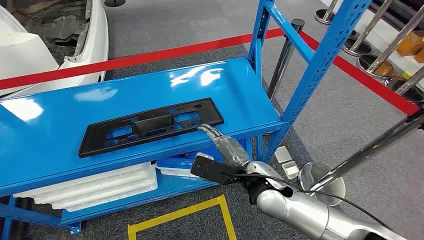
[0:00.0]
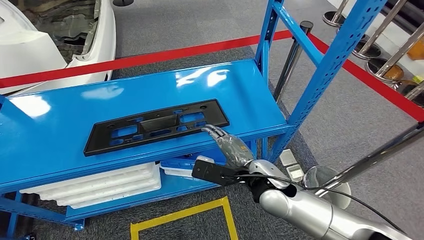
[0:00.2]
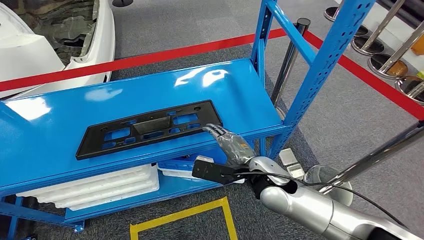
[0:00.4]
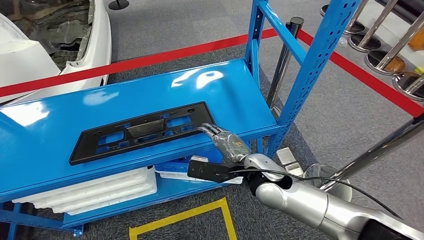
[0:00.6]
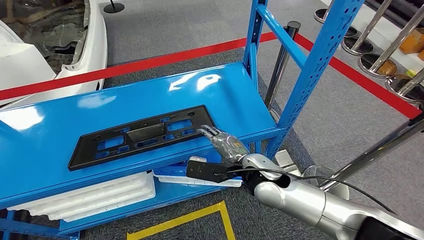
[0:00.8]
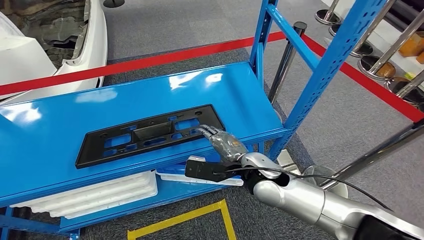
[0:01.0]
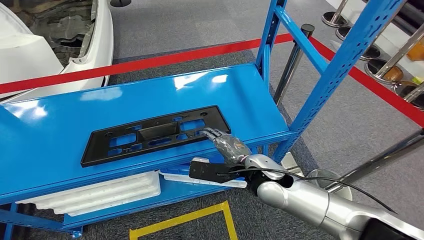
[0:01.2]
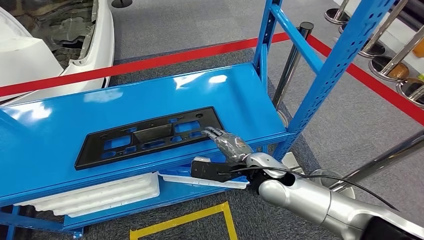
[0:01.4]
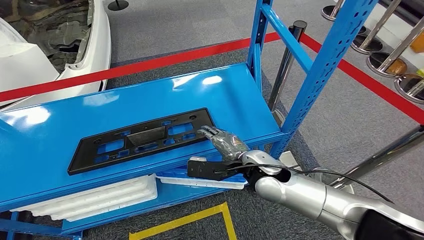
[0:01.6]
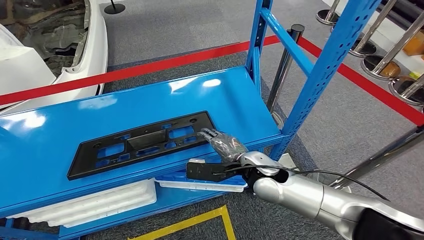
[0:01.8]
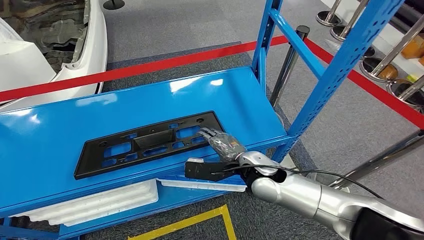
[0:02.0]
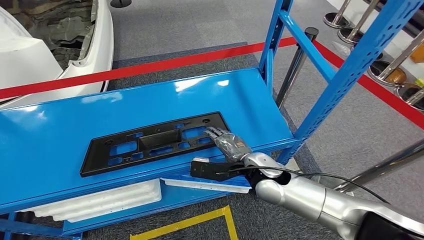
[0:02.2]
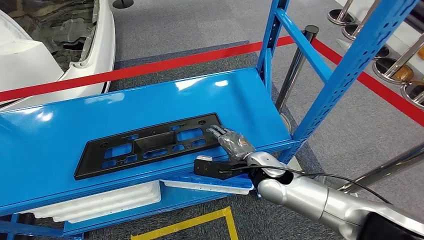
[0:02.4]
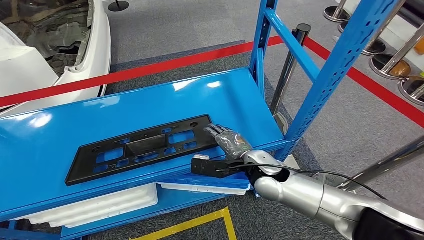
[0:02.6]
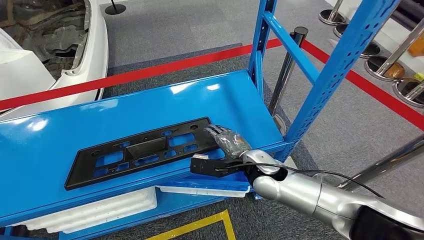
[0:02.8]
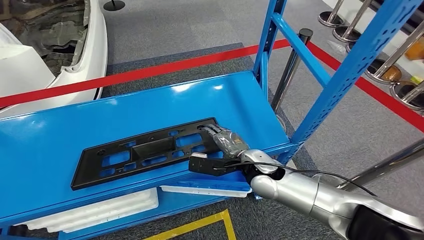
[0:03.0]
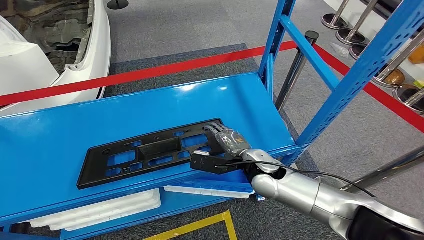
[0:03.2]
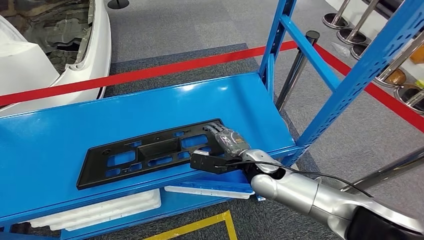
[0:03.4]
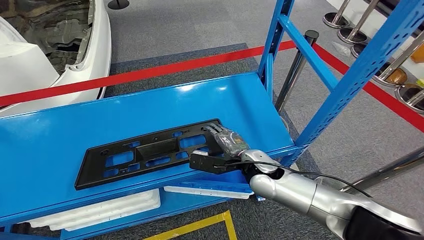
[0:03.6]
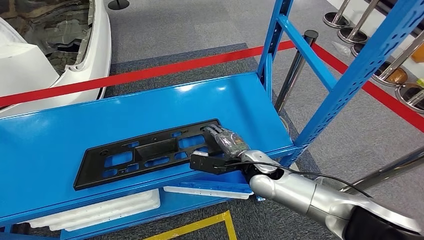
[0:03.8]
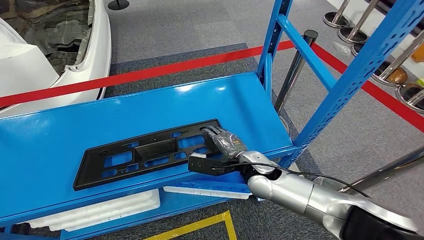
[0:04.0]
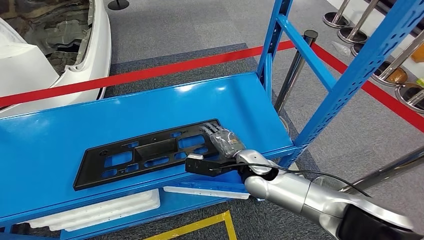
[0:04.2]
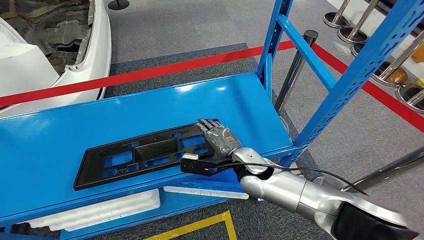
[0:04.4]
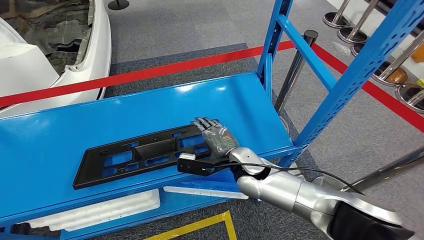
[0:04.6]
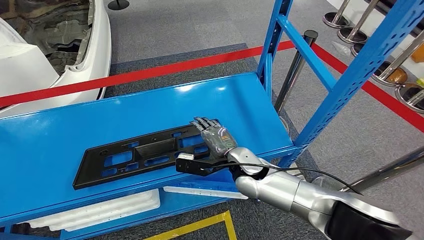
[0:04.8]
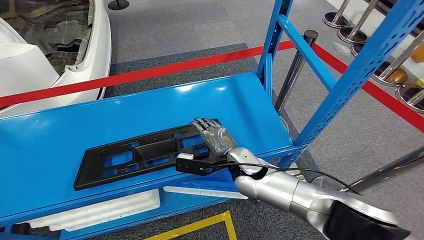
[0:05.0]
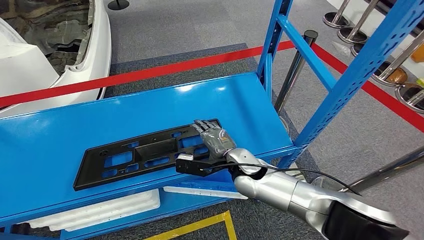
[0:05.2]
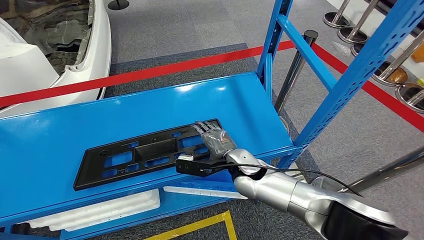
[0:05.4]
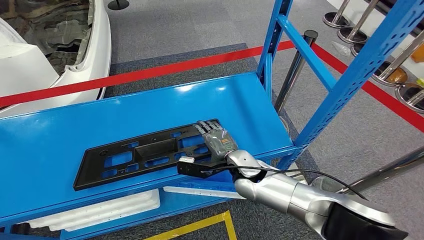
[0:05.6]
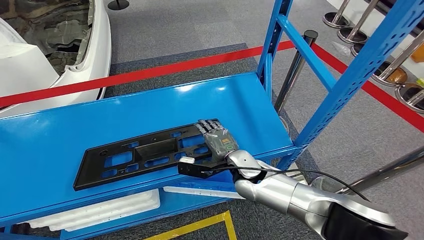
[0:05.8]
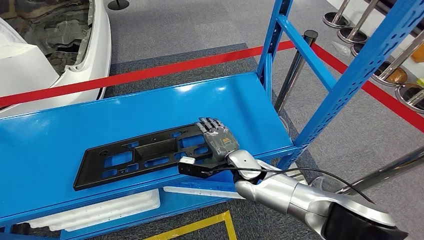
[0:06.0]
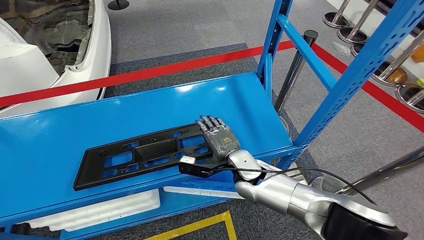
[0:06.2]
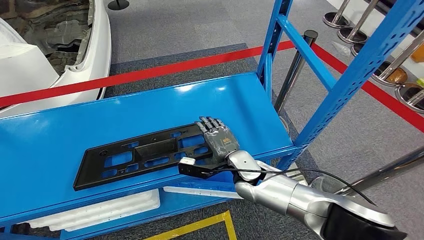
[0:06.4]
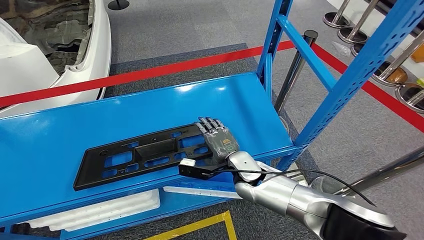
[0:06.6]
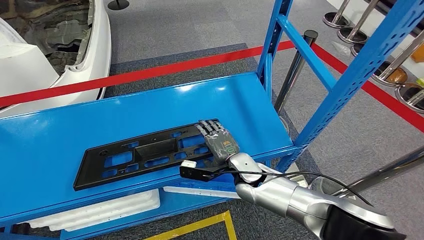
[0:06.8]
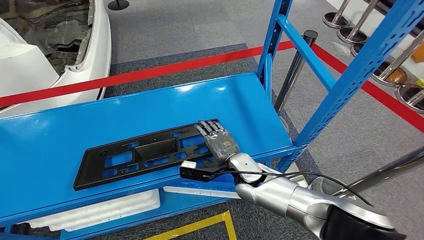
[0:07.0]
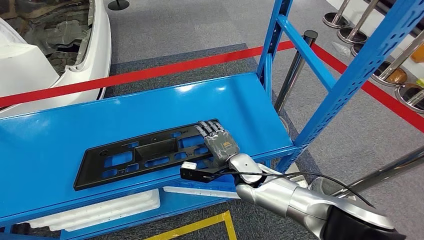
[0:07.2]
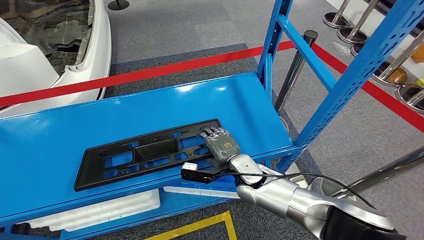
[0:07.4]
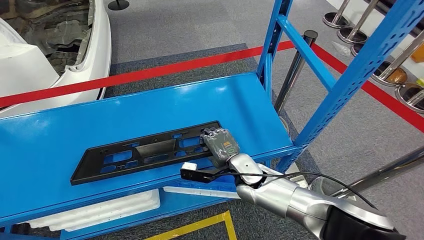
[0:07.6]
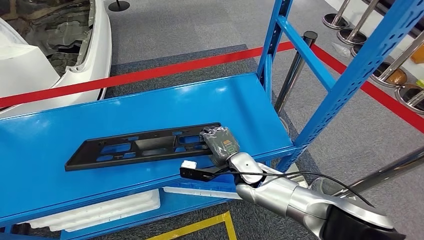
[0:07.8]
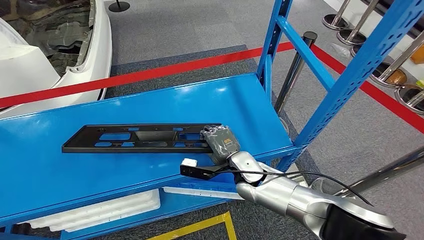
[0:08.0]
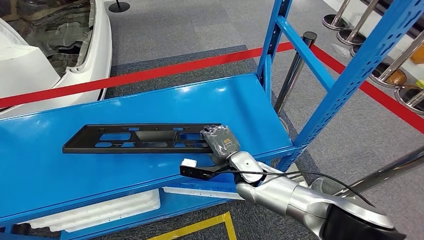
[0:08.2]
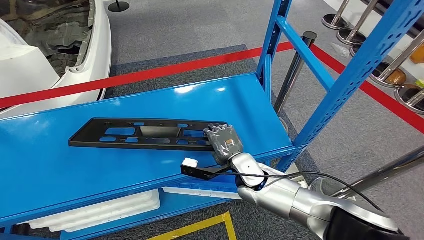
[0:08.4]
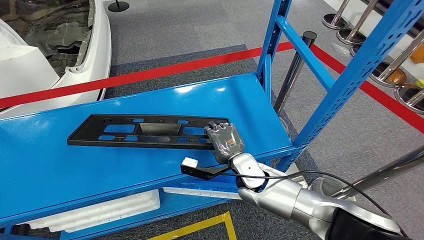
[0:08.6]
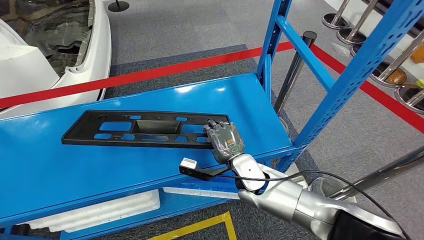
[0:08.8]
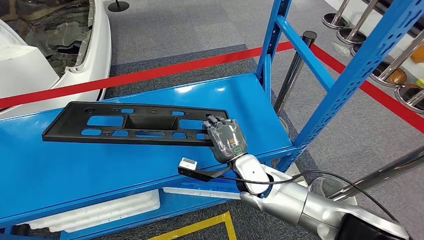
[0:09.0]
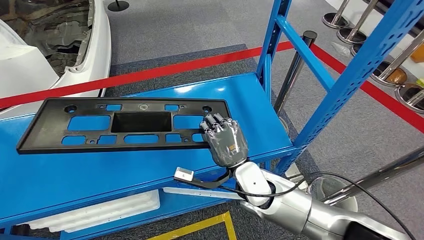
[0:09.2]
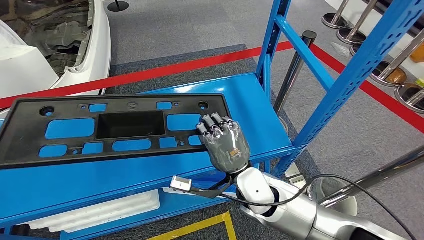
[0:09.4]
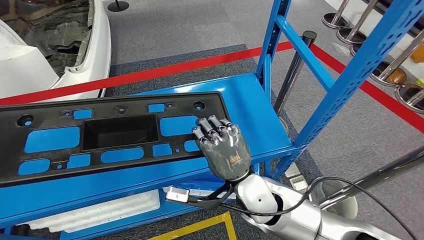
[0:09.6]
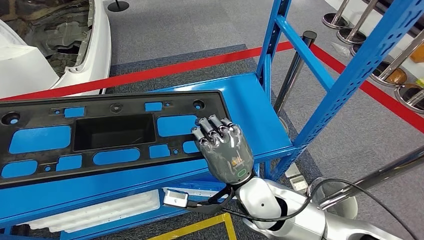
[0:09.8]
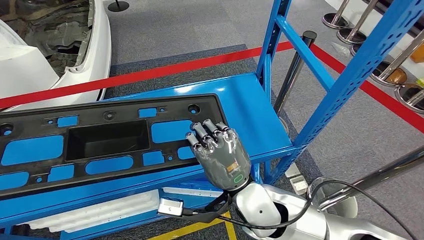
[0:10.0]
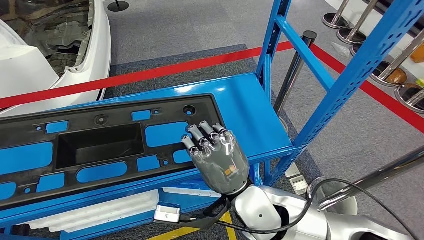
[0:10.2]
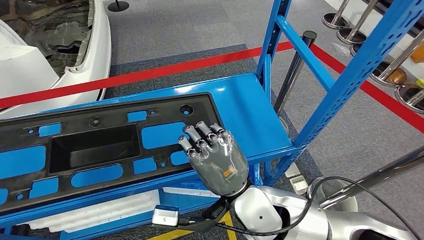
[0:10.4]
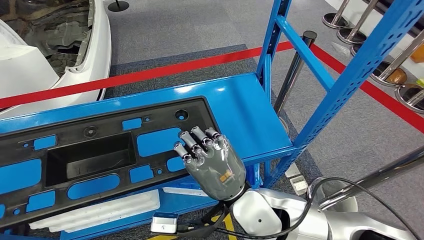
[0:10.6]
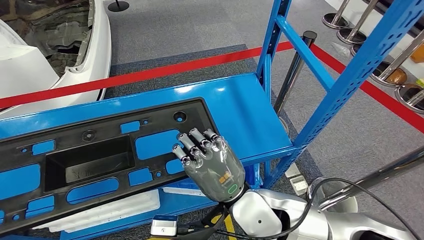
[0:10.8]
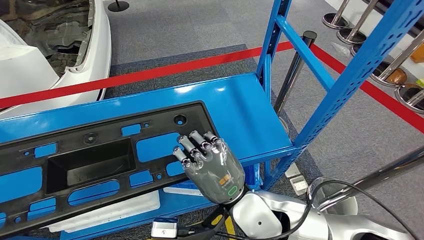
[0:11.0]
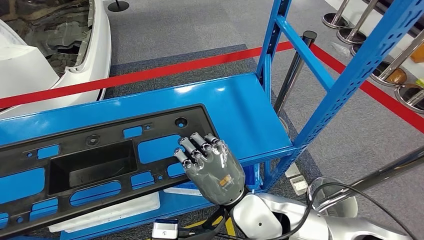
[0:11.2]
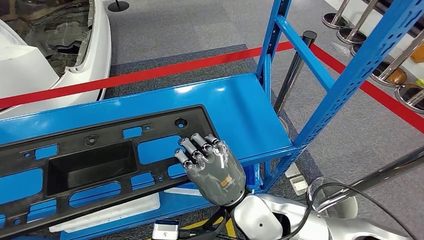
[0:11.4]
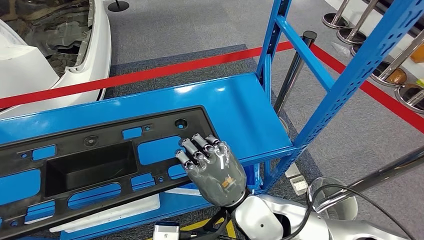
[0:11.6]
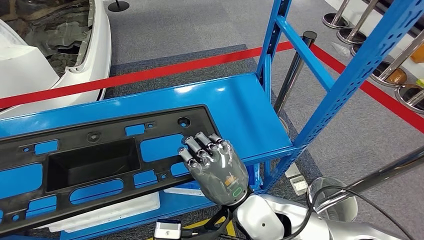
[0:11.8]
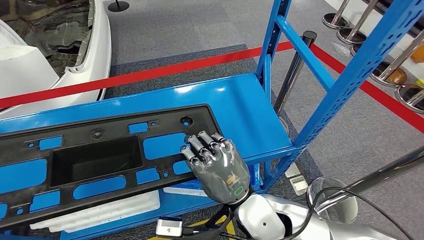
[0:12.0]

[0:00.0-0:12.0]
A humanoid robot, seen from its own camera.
0:04.4 to 0:07.6: The hands move only a little.
0:07.6 to 0:09.0: The hands move only a little.

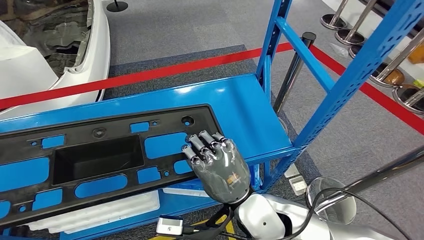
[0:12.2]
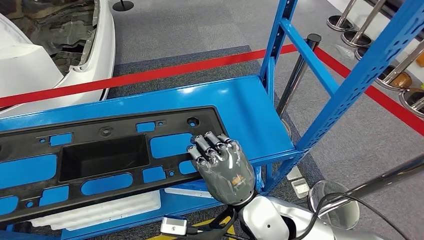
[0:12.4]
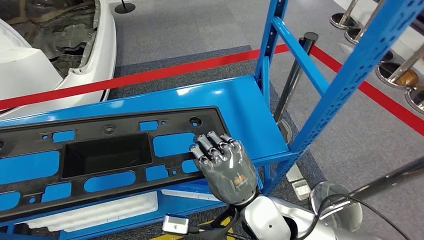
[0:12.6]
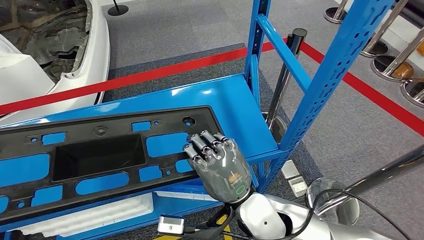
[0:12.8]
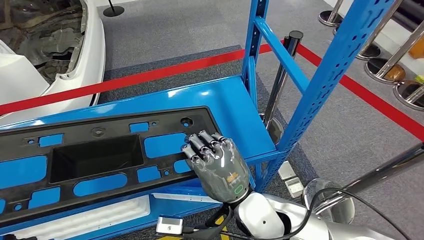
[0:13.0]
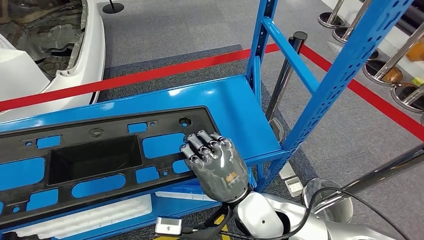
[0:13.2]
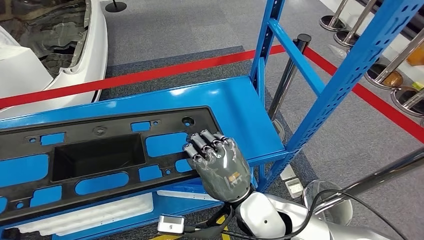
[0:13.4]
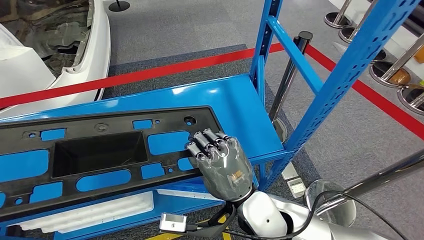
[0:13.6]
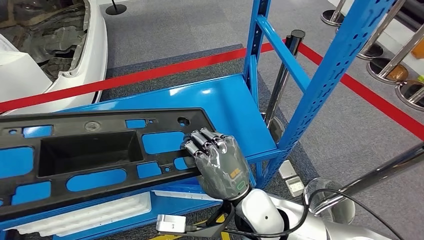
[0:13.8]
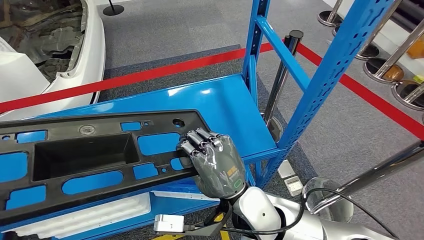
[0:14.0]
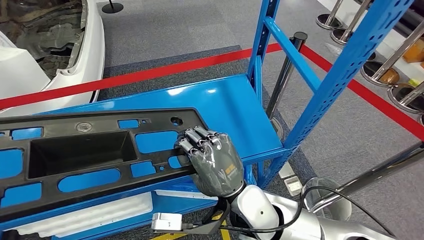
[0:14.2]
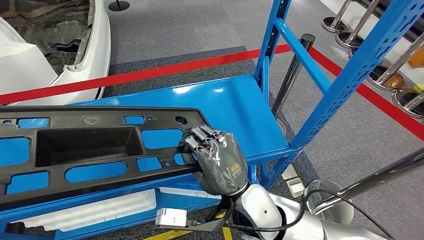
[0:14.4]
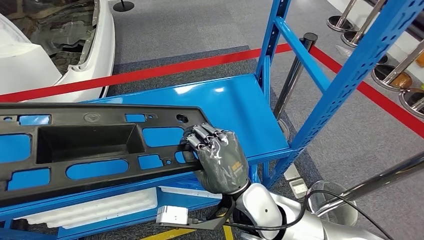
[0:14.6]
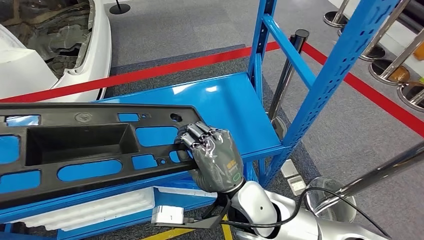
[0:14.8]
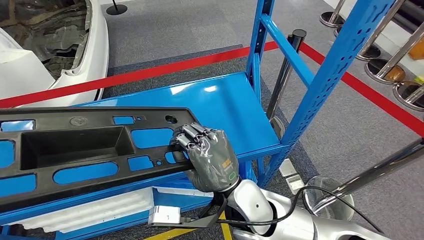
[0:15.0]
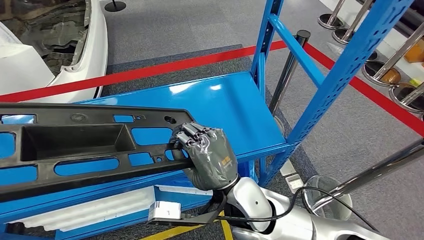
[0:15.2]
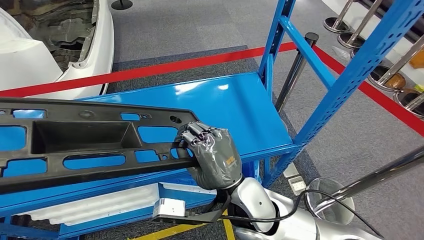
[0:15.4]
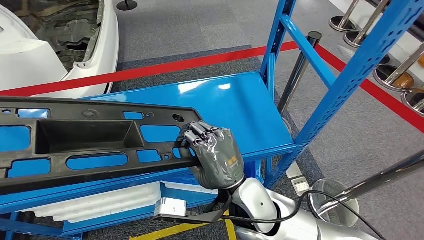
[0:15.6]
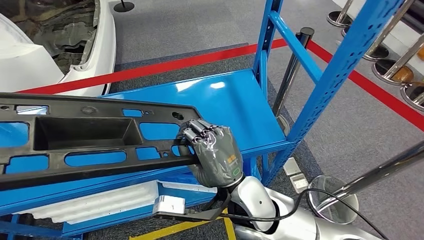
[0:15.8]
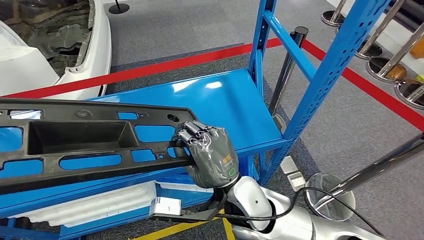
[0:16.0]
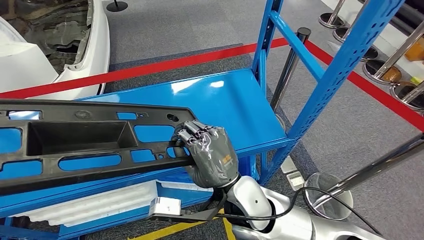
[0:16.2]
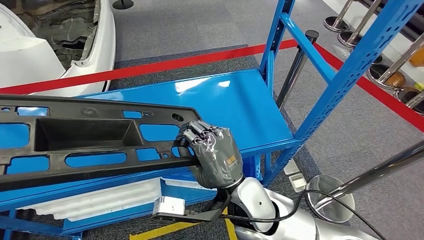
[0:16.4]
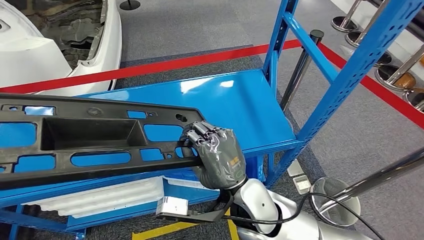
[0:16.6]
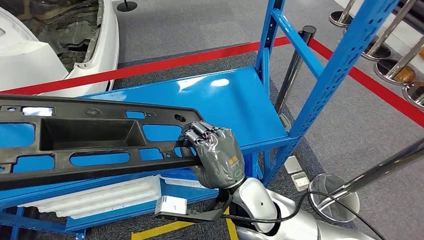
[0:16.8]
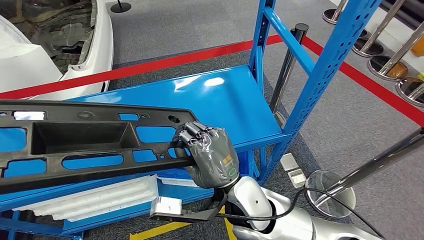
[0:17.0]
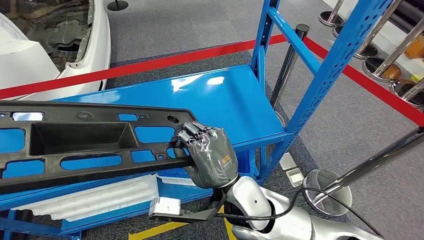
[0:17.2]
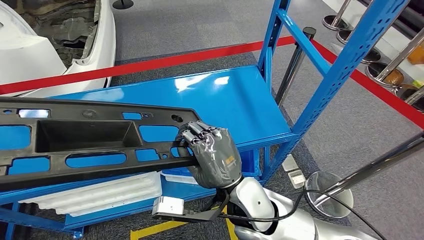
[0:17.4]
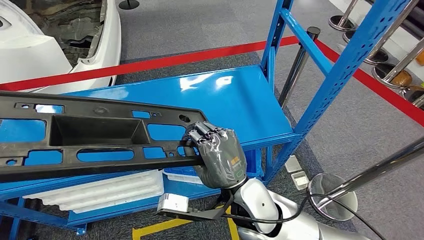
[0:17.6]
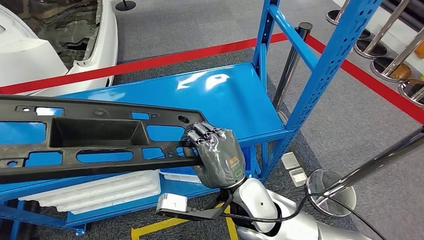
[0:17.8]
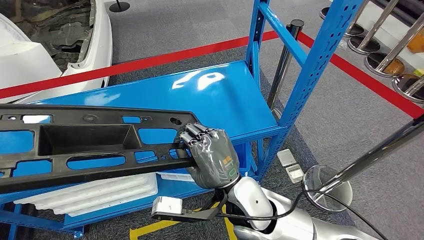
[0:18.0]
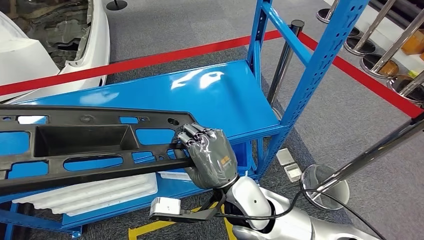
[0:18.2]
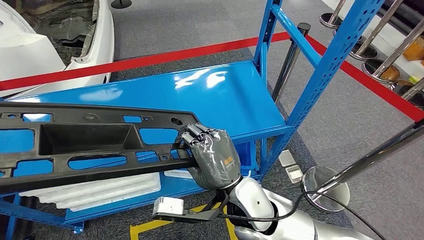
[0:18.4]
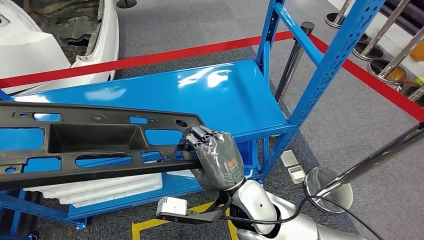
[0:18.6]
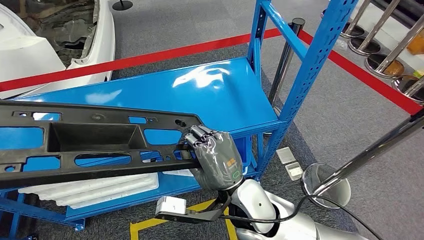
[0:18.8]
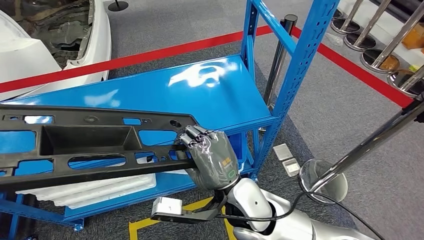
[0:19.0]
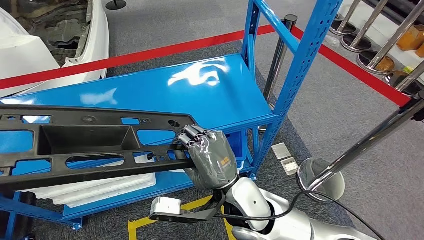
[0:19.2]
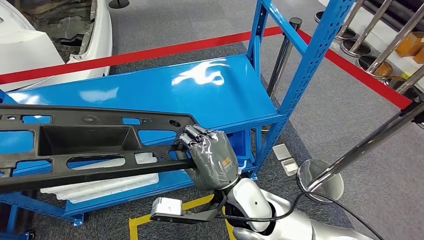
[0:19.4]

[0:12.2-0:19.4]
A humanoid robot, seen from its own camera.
Step, 0:12.2 to 0:17.8: Pick up the large material from the shelf.
